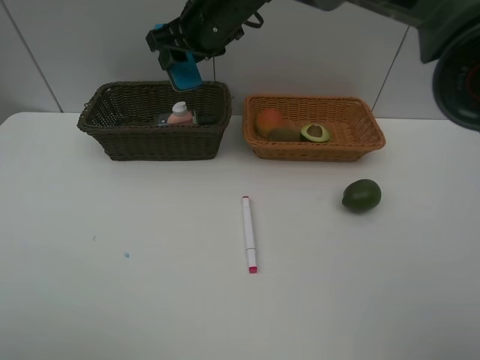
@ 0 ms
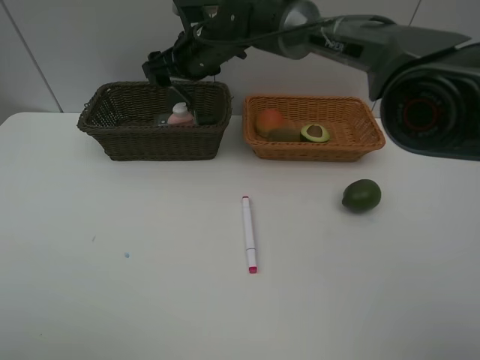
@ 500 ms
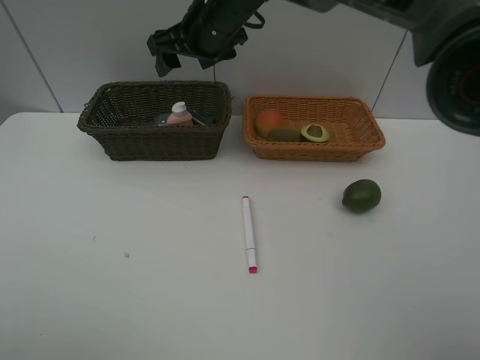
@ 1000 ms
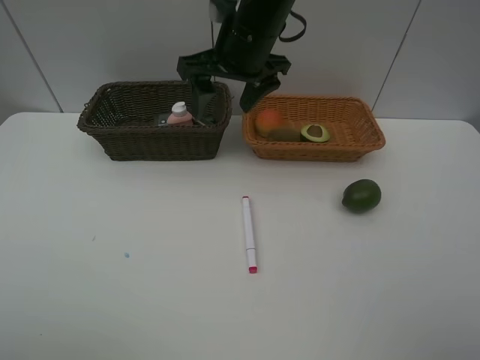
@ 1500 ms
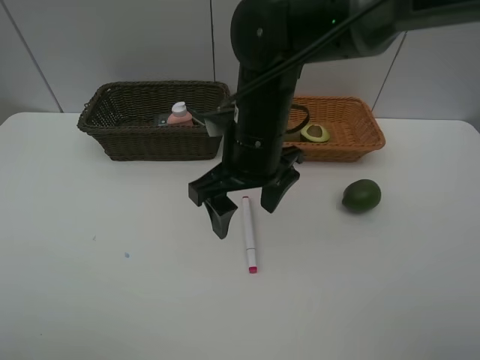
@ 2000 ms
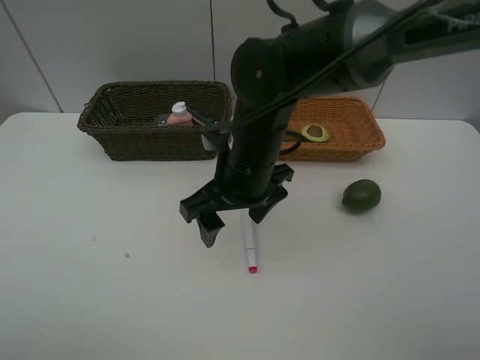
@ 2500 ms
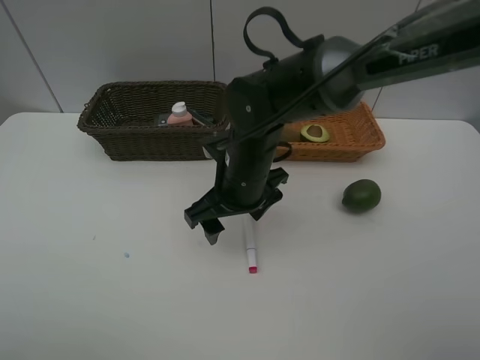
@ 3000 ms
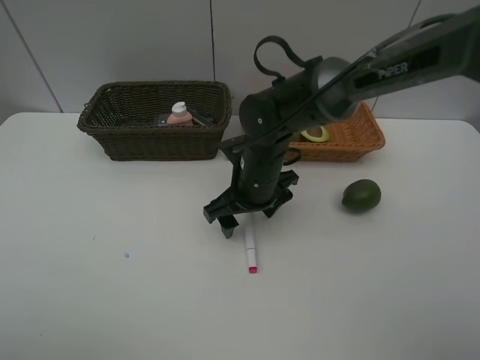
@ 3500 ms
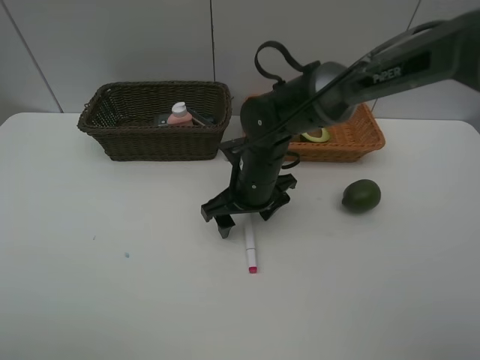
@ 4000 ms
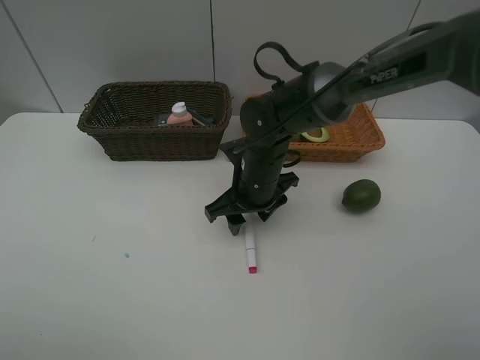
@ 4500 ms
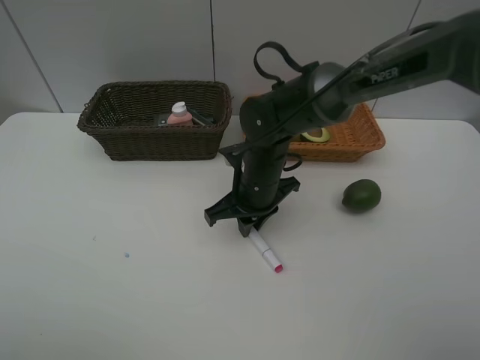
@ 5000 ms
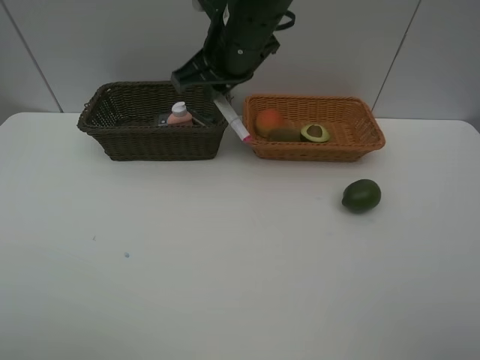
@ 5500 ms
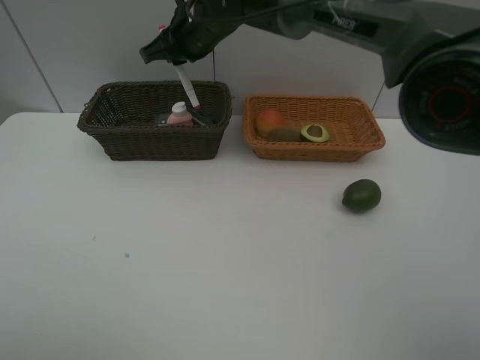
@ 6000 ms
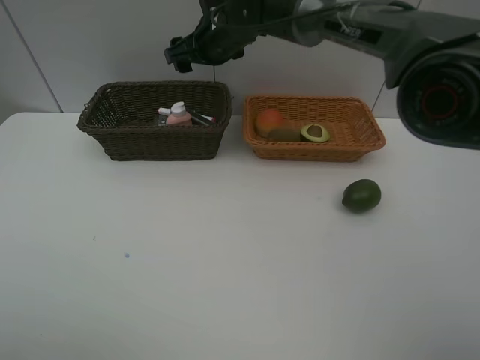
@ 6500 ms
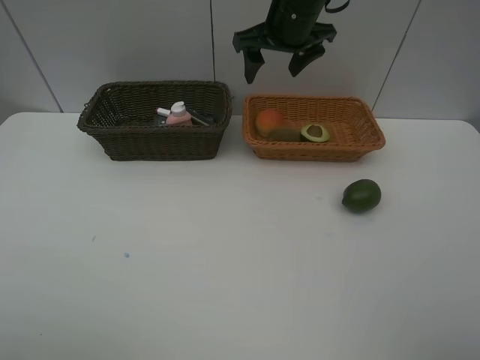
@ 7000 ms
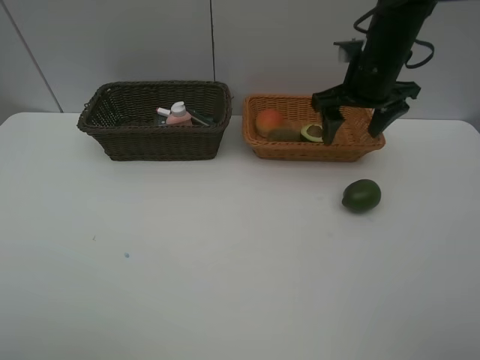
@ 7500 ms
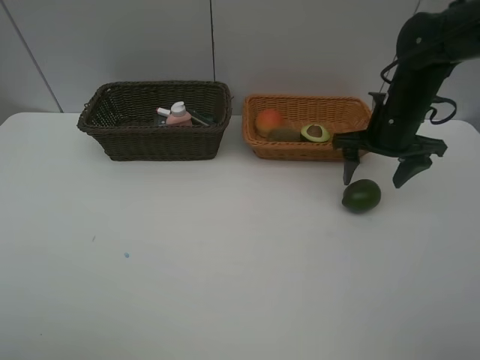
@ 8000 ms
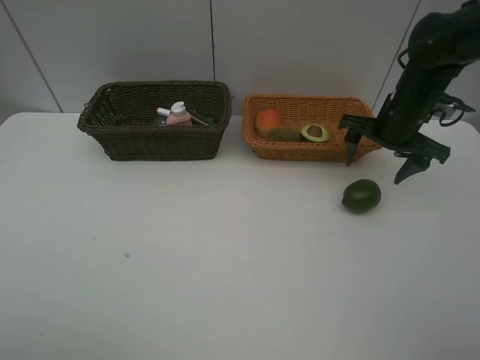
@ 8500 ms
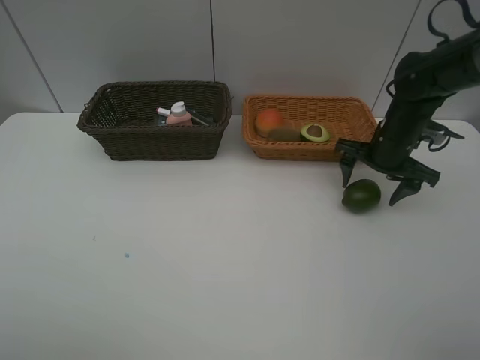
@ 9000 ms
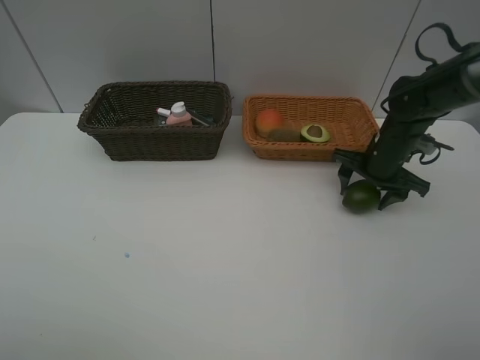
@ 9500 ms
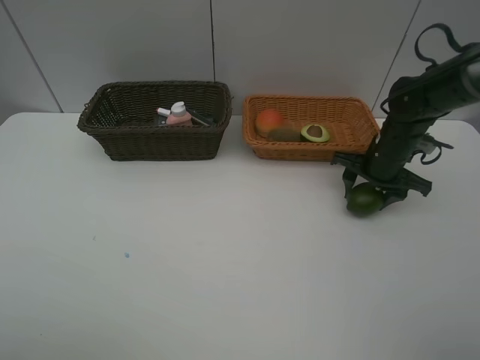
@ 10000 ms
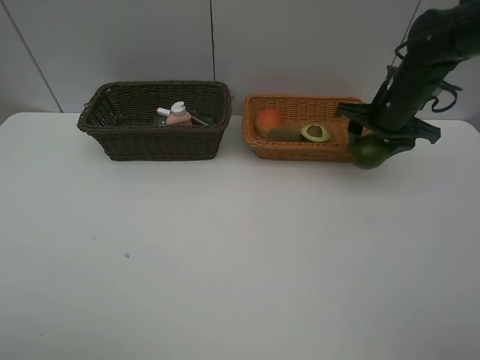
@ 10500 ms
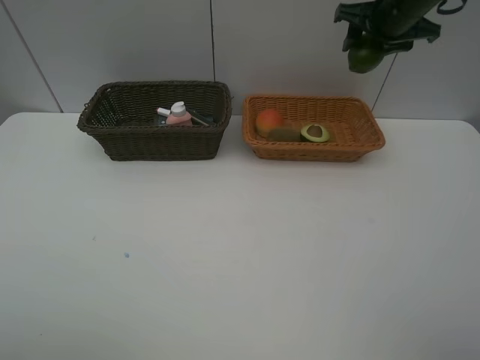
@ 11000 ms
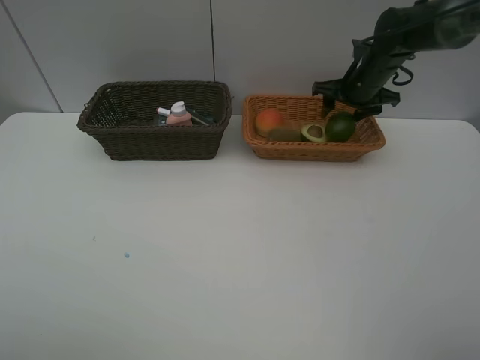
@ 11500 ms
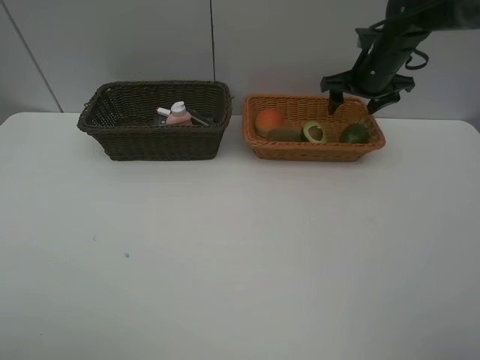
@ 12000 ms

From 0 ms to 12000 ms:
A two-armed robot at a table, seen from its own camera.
Task of the whole recording: Place multiple objects separately in different baskets.
Step, from 1000 ms to 5000 ms: Pick up the red marker with right gripper.
Step, from 5500 ms to 6000 ms: Place the red marker in the dark basket with right gripper.
Step, from 6500 ms to 10000 ms: Pick up the lime with right gripper.
Step, from 10500 ms to 12000 ms: Place the lime in the light basket with right gripper.
From 0 ms to 2000 ms: The right gripper travels backward and downward by roughly 20 cm, and opens up.
From 2000 ms to 4000 ms: The right gripper moves downward, some 10 cm.
From 4000 ms to 6000 ms: The right gripper travels upward, forward and to the left by some 20 cm, and closes.
From 6000 ms to 8000 ms: The right gripper moves to the right, about 30 cm, and opens.
From 8000 ms to 10000 ms: The right gripper is displaced downward by approximately 5 cm.
From 10000 ms to 12000 ms: The right gripper moves up and down over roughly 20 cm, changing direction 2 times.

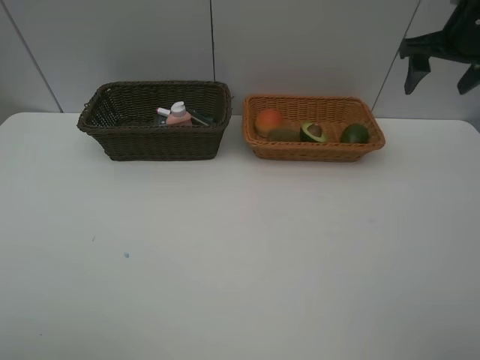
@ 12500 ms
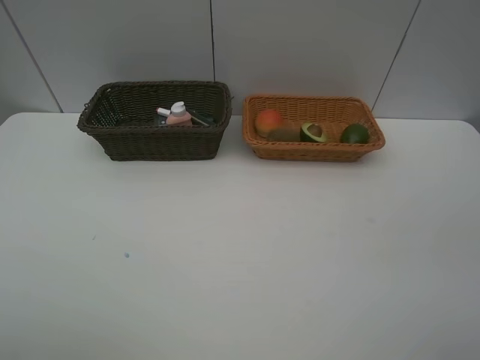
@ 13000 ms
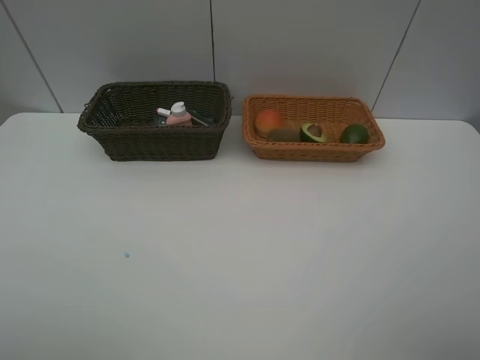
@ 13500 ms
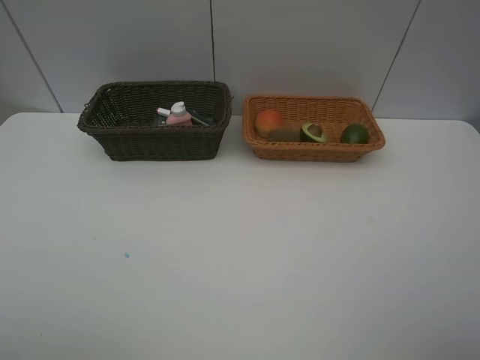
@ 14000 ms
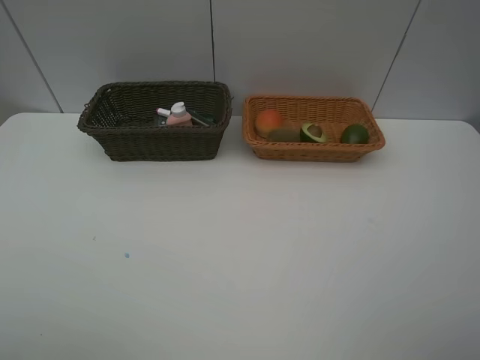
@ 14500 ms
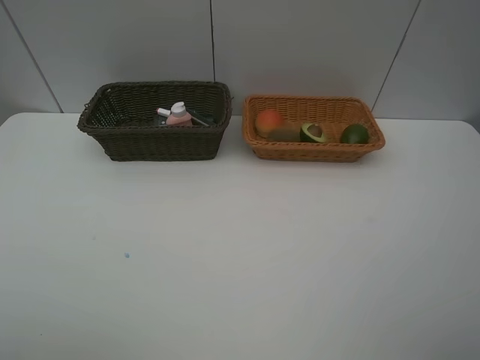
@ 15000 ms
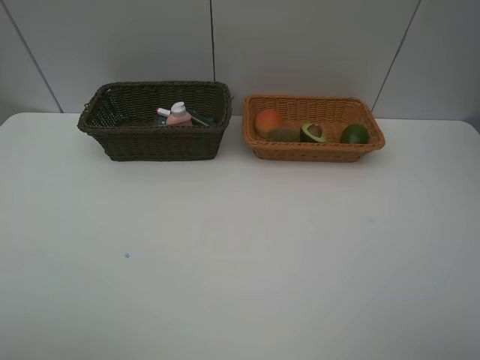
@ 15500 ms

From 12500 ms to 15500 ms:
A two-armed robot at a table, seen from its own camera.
Task of the whole recording: Place multiple objects separately in different baskets.
From 12500 ms to 14000 ms: The right gripper heads backward, covering about 40 cm.
From 14000 ms to 15500 ms: Both grippers stay put.

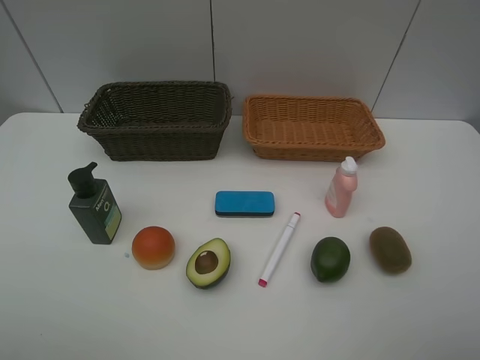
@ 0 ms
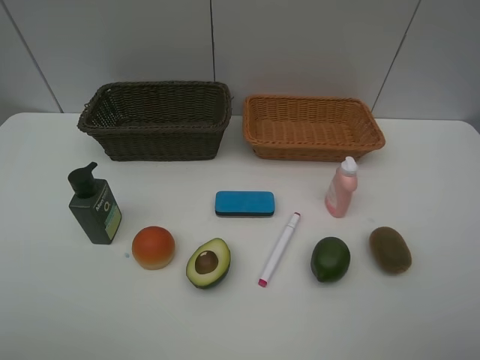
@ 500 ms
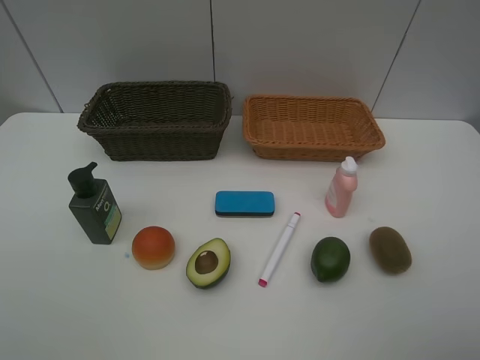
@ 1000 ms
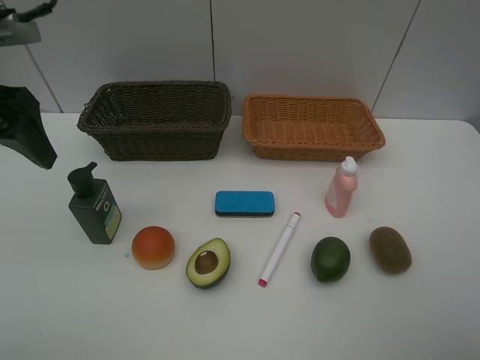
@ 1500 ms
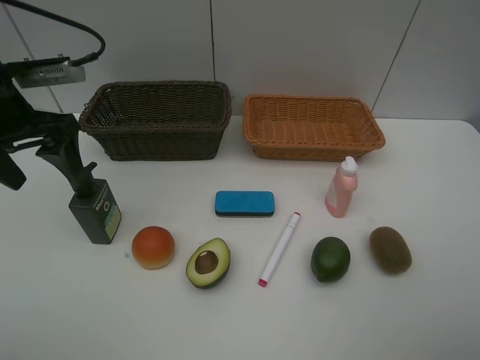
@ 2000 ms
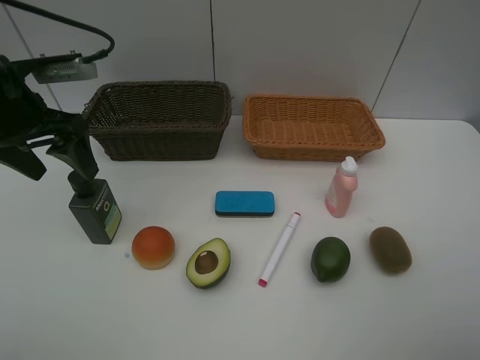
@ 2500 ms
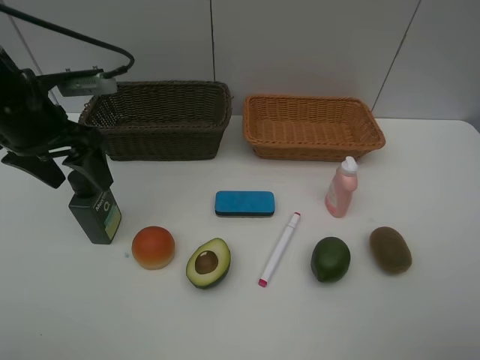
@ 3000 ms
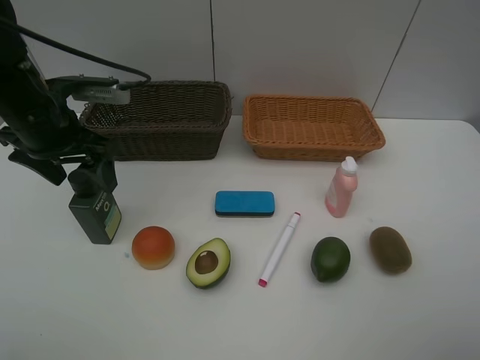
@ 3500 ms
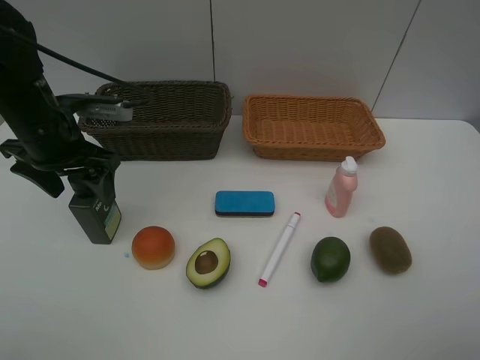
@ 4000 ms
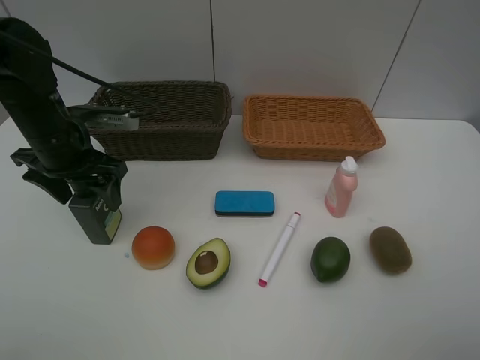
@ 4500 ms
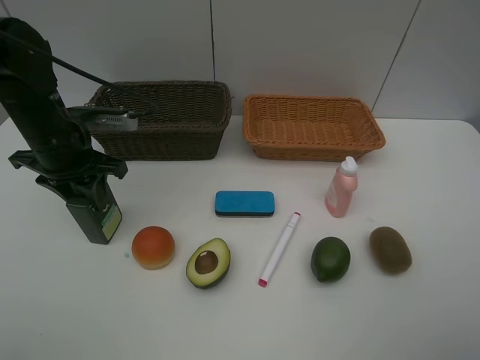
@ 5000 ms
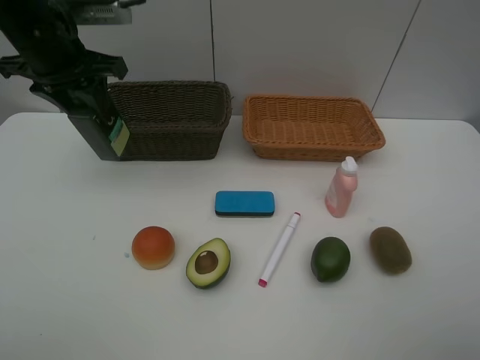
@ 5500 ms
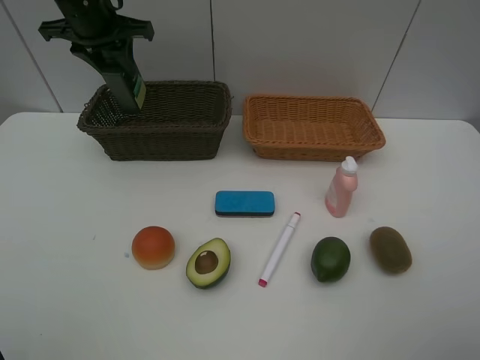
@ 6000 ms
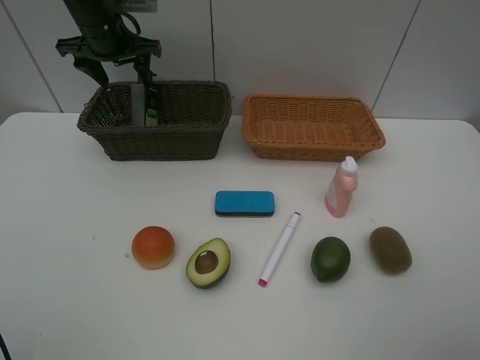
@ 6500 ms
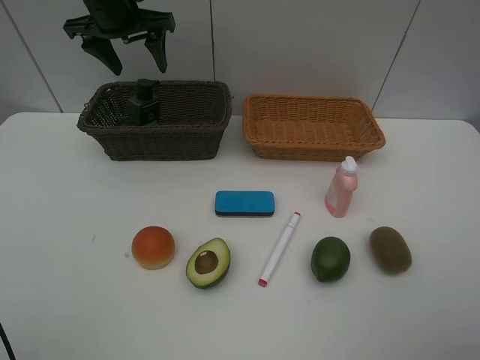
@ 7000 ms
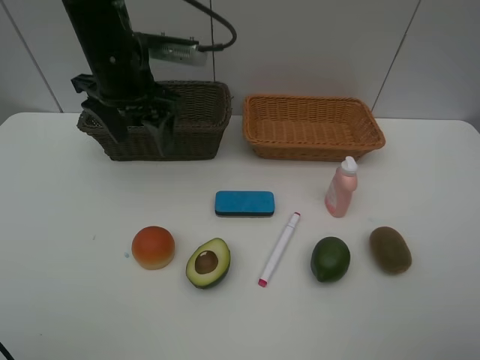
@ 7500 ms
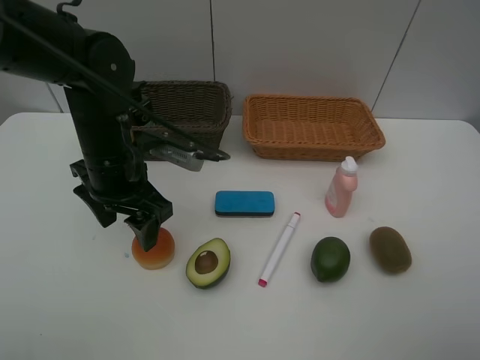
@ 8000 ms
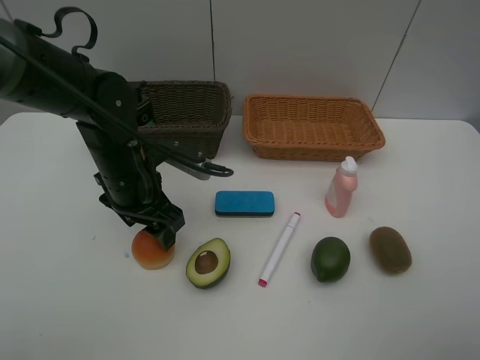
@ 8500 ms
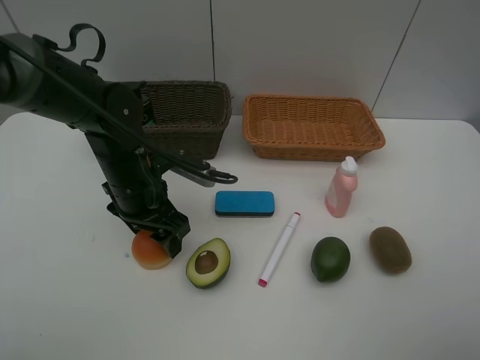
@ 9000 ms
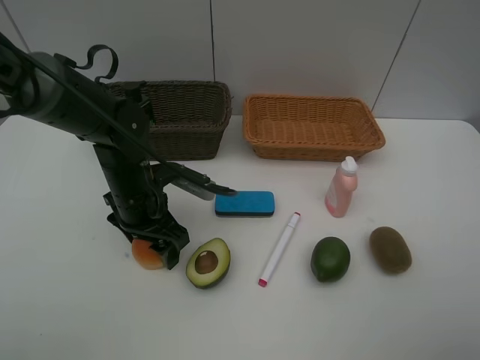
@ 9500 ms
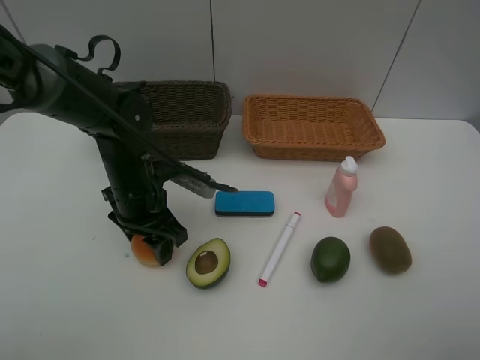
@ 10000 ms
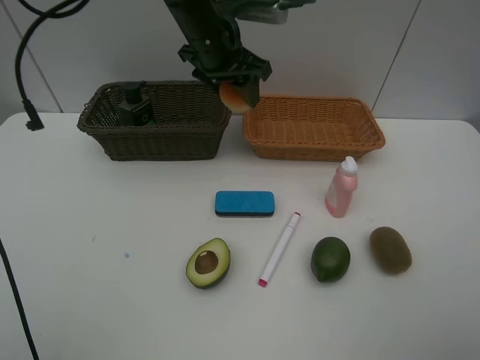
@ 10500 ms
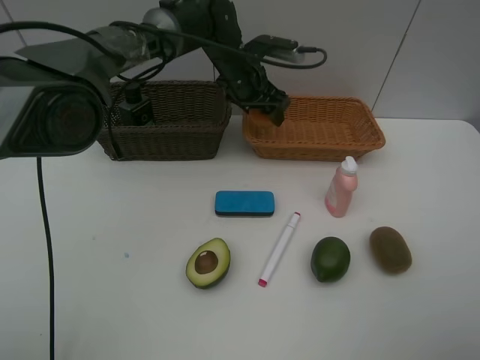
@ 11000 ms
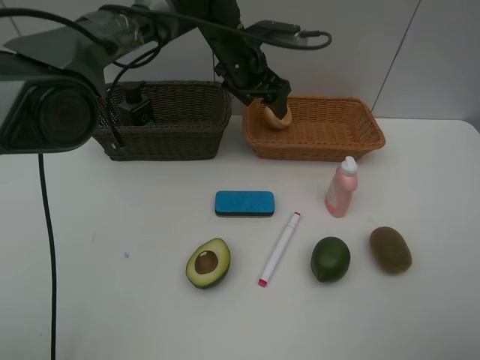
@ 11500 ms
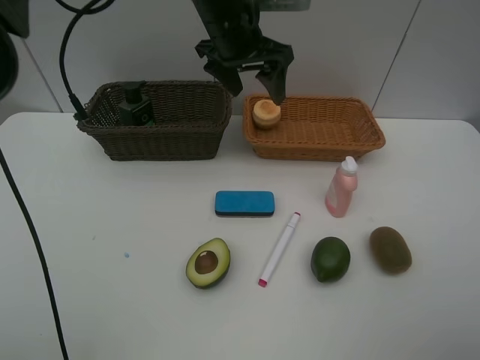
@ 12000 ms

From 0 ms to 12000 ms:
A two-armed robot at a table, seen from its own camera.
Task of the whole recording: Place multiple objects separately in different baskets.
Step, from 0 ms to 5000 ms: Pick up the hard facial cleanser with left gripper.
Step, from 5500 ms to 6500 ms: Place the hard facial cleanser in the dark basket with left gripper.
Step, from 7000 ms to 10000 ms: Pick up egg yolk pastry with left gripper.
Step, from 10500 ms to 11500 ms: Place the egg yolk pastry in the light basket with left gripper.
From 0 ms to 2000 ms: The left gripper moves forward, approximately 30 cm.
From 2000 ms to 4000 ms: The left gripper goes roughly 5 cm downward.
From 4000 ms to 6000 ms: The left gripper is displaced forward and upward by about 20 cm, and closes its fingers.
From 6000 ms to 8000 ms: The left gripper goes some 20 cm backward and downward, and opens its fingers.
From 8000 ms to 10000 ms: The left gripper heads downward, covering about 5 cm, and closes up.
From 10000 ms to 12000 ms: The left gripper heads upward, forward and to the right, covering approximately 25 cm, and opens up.
